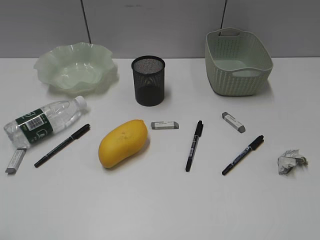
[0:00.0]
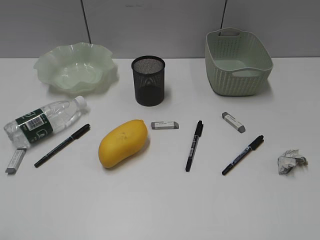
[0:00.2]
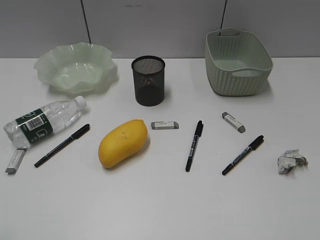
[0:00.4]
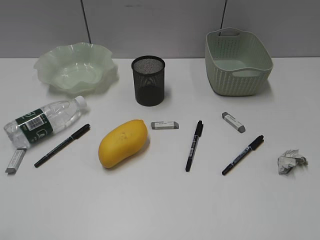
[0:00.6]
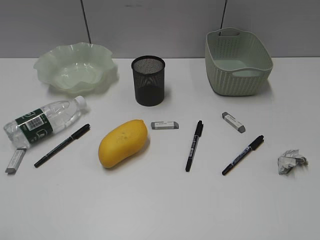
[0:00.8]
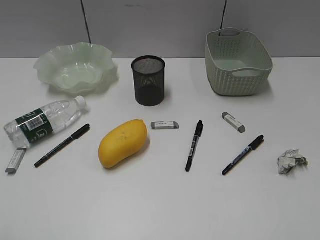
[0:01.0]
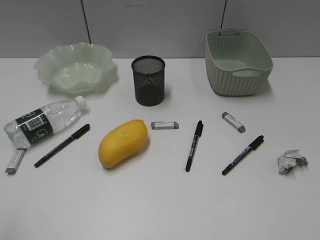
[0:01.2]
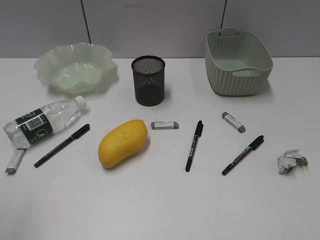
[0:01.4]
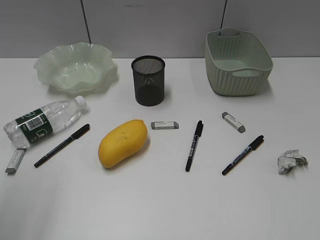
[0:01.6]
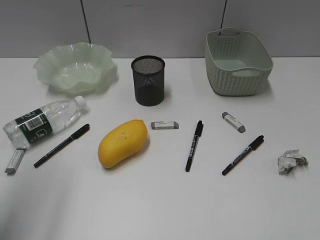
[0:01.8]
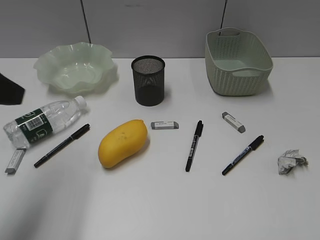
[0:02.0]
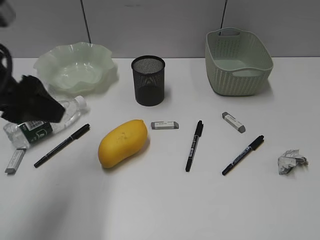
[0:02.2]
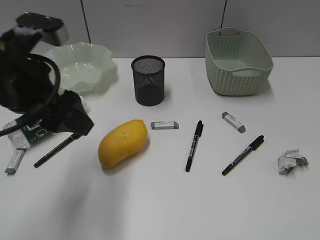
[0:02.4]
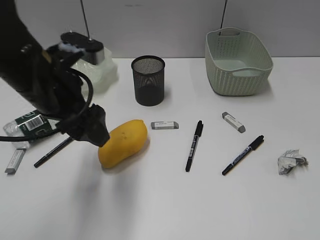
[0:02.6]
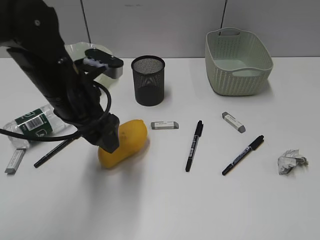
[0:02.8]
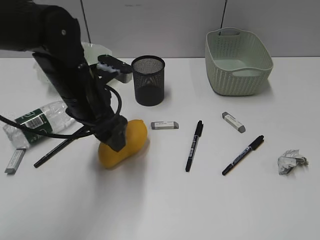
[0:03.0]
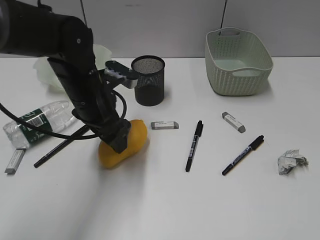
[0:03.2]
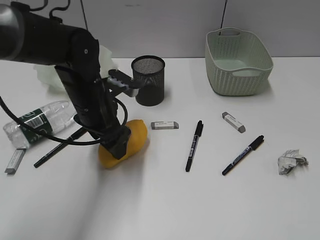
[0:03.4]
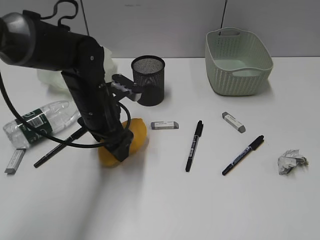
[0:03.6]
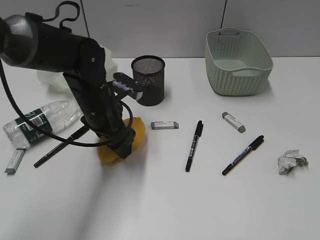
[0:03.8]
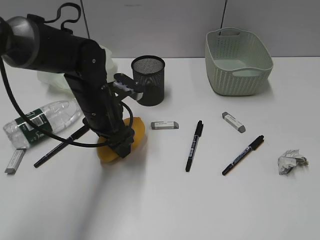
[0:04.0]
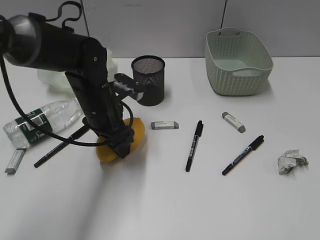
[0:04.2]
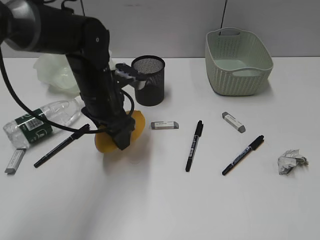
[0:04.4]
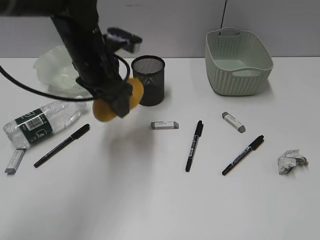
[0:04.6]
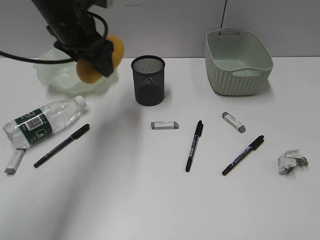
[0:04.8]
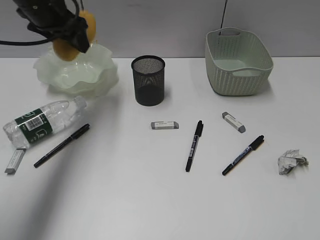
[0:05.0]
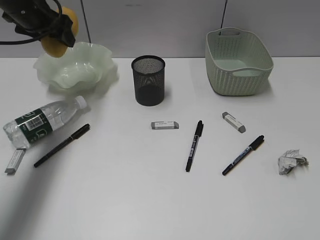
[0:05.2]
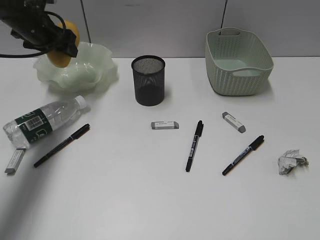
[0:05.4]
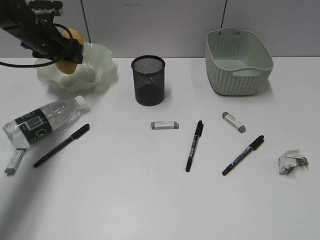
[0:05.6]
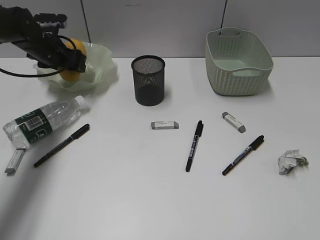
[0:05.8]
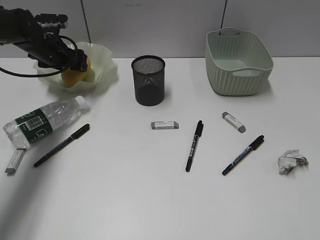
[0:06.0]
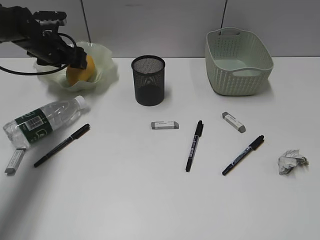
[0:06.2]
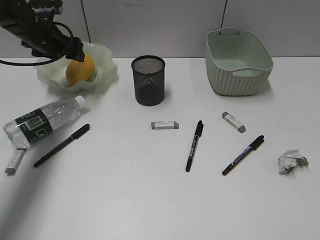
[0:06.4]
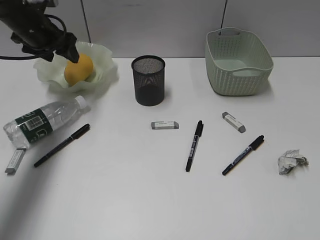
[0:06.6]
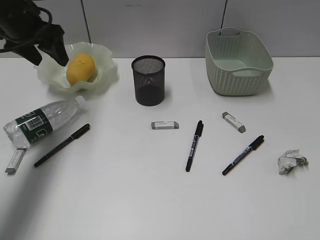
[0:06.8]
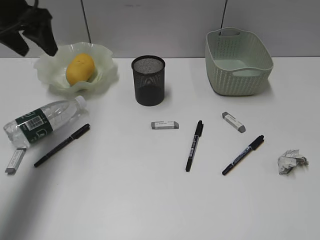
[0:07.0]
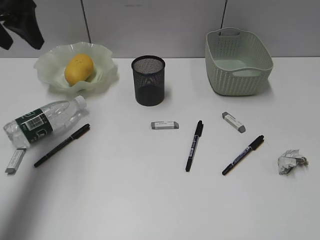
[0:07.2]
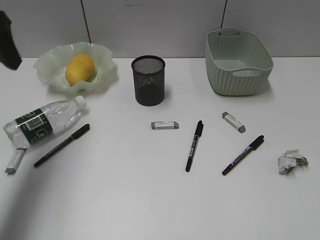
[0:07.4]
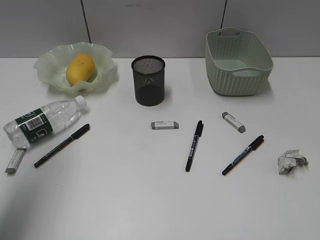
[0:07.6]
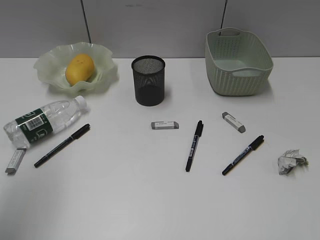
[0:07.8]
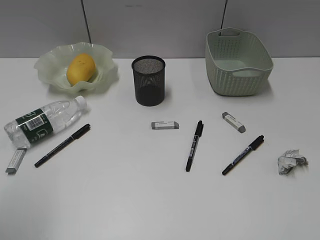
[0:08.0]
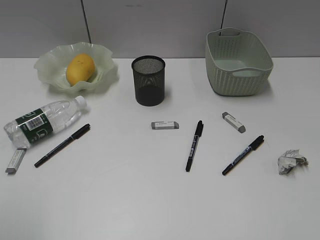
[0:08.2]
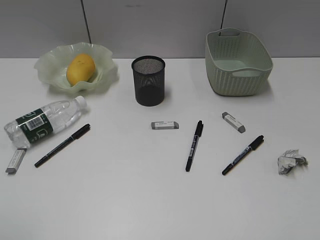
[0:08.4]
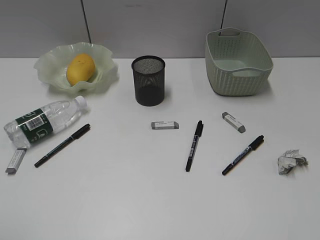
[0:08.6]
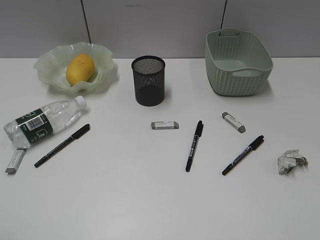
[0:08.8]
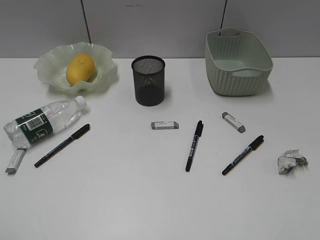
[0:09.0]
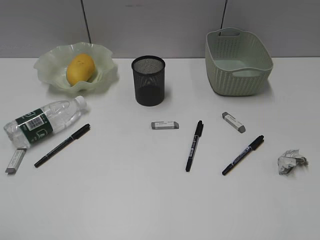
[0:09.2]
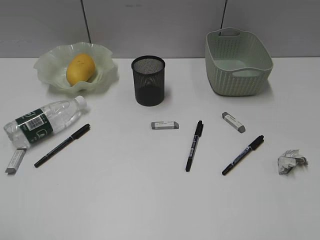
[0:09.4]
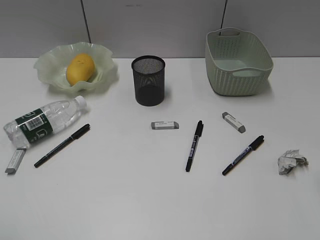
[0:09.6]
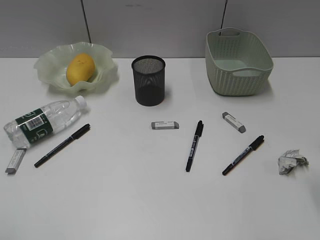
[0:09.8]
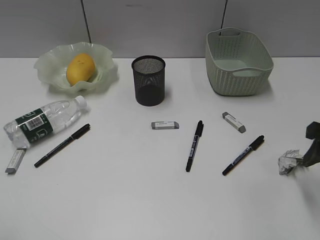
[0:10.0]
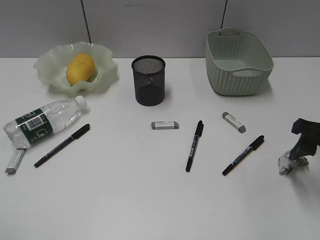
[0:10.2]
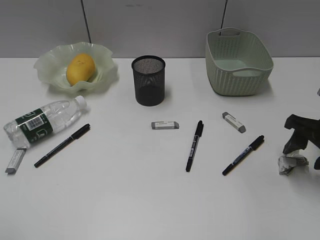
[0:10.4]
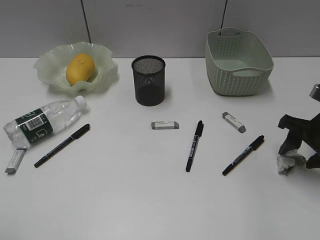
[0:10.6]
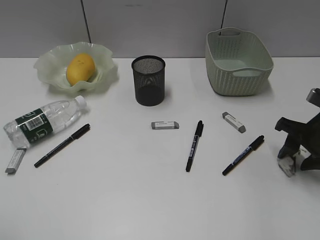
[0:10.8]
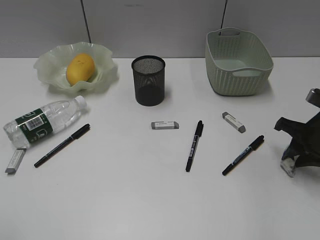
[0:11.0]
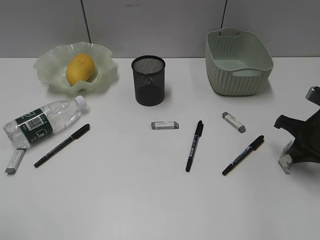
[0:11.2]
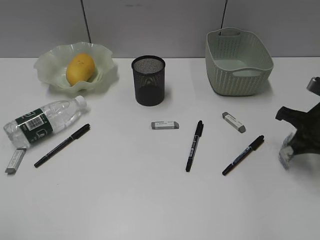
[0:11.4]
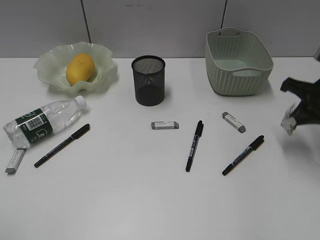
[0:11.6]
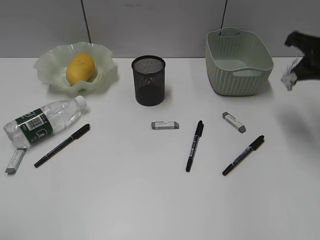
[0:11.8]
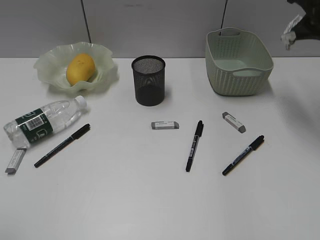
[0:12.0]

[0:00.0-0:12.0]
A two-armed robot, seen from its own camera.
Step, 0:01.2 to 0:04.0: Grasp the mango with left gripper.
Step, 0:04.2 to 0:06.4: Place the mango in the plate with left gripper.
Step, 0:06.6 to 0:11.2: Grasp the waste paper with right gripper.
0:01.6 to 0:03.0: The left gripper is displaced forward, to the right and downward by about 30 cm.
0:03.0 to 0:04.4: The left gripper moves some 5 cm.
0:04.4 to 0:06.0: The left gripper travels forward and to the left by approximately 20 cm.
0:06.0 to 0:07.6: The left gripper moves backward and upward, some 30 cm.
0:07.6 to 0:09.0: The left gripper goes approximately 25 cm backward.
0:09.0 to 0:10.4: The right gripper goes roughly 30 cm forward and downward.
0:10.4 to 0:12.0: The right gripper travels upward and forward by about 15 cm, and closes its fingers.

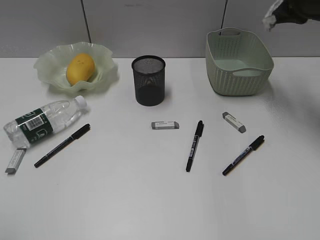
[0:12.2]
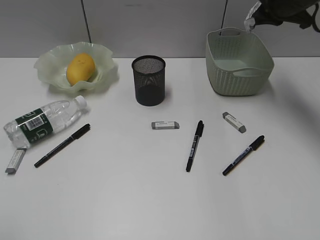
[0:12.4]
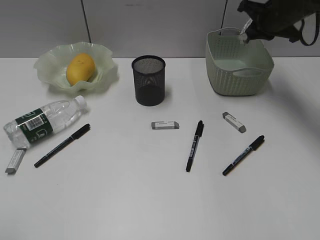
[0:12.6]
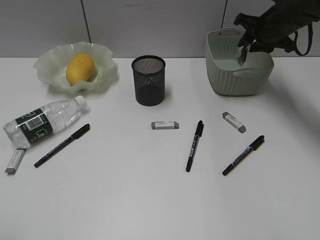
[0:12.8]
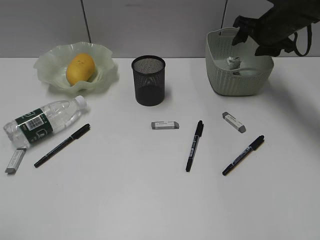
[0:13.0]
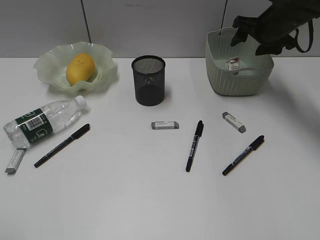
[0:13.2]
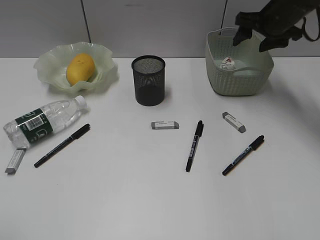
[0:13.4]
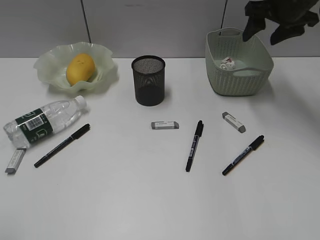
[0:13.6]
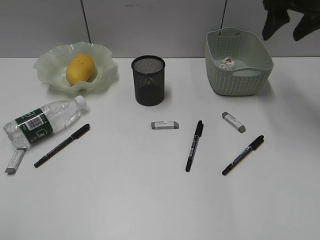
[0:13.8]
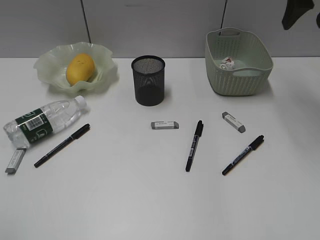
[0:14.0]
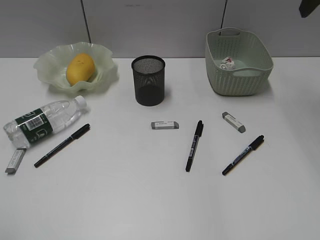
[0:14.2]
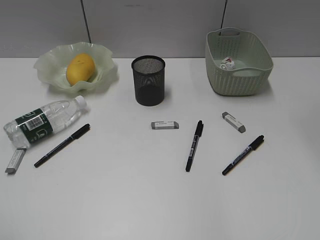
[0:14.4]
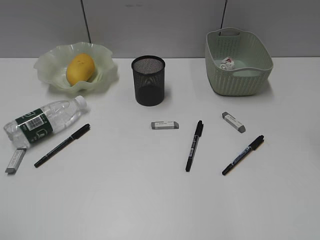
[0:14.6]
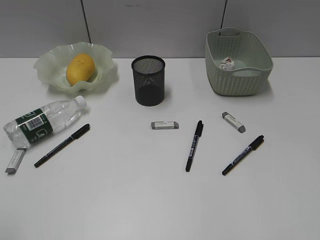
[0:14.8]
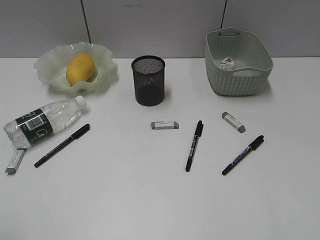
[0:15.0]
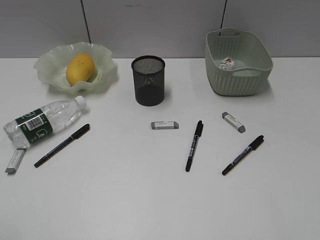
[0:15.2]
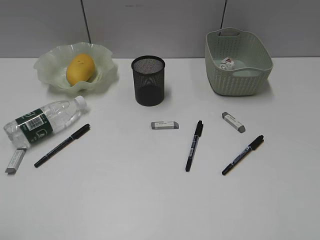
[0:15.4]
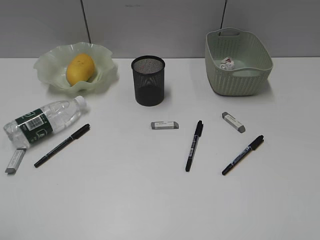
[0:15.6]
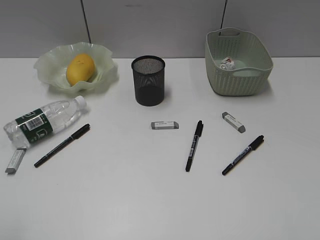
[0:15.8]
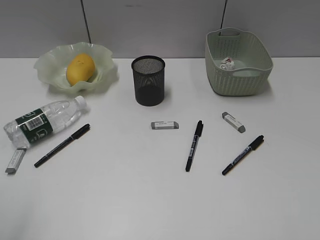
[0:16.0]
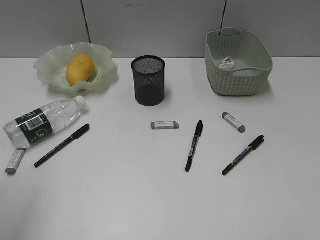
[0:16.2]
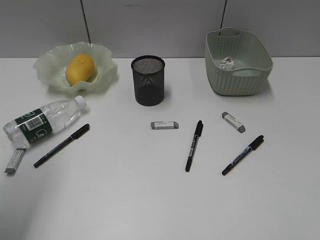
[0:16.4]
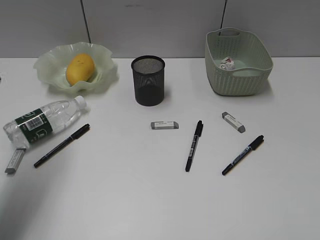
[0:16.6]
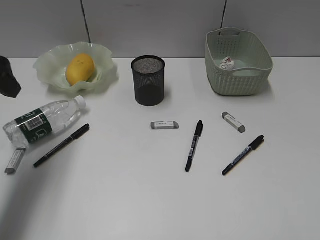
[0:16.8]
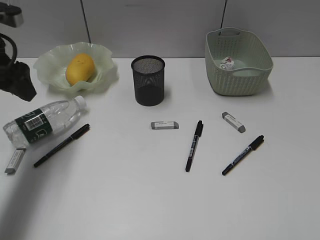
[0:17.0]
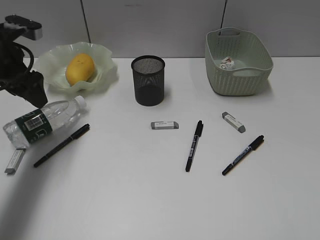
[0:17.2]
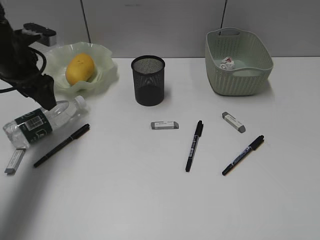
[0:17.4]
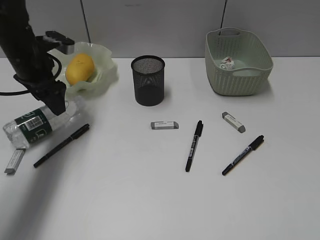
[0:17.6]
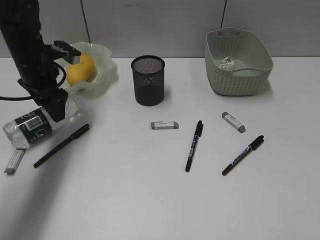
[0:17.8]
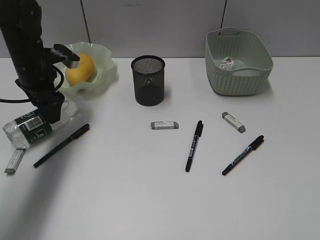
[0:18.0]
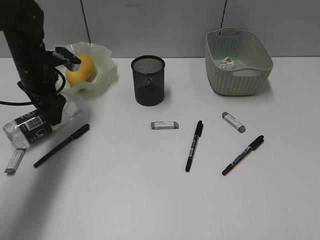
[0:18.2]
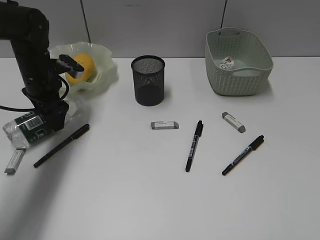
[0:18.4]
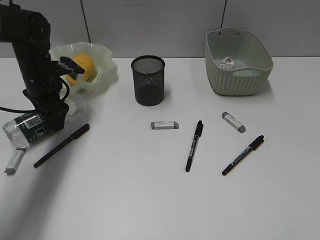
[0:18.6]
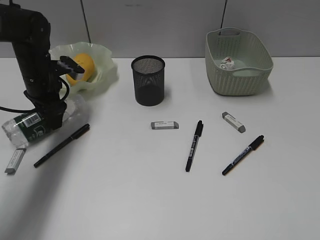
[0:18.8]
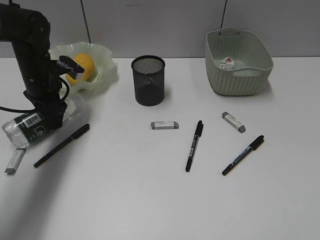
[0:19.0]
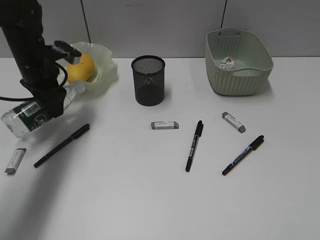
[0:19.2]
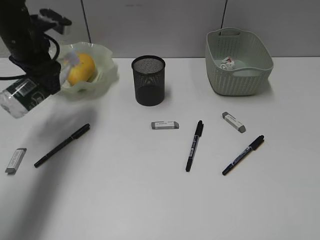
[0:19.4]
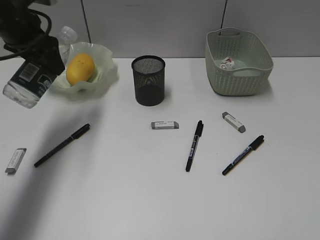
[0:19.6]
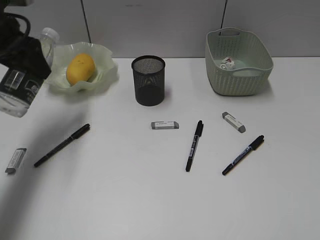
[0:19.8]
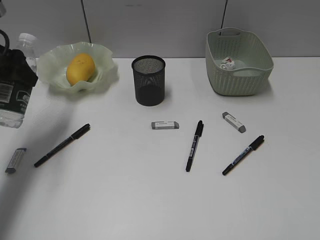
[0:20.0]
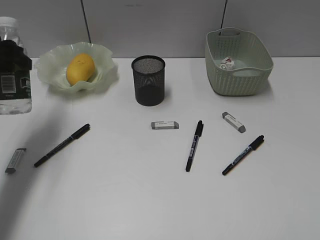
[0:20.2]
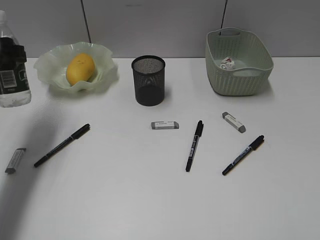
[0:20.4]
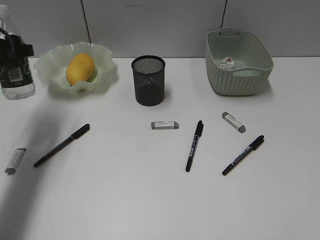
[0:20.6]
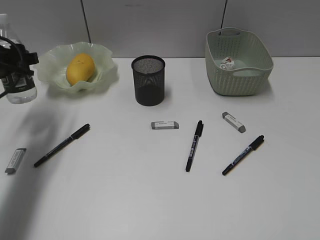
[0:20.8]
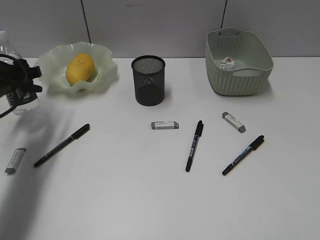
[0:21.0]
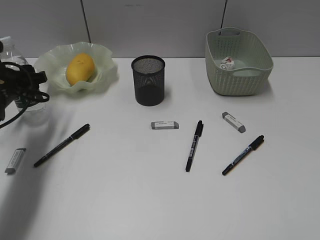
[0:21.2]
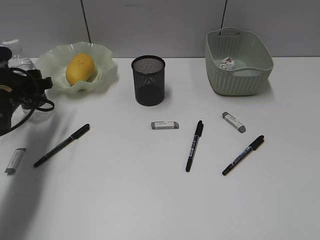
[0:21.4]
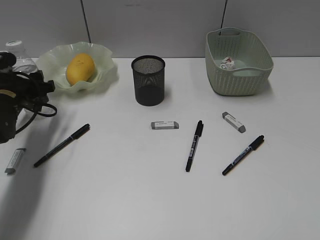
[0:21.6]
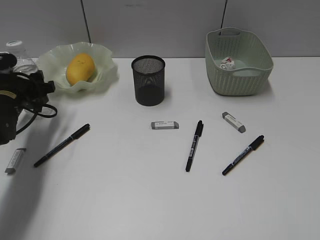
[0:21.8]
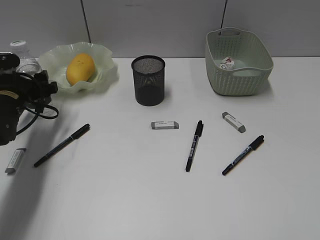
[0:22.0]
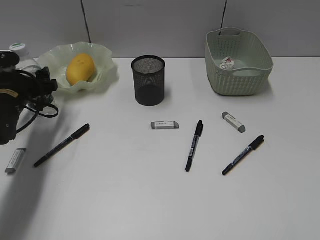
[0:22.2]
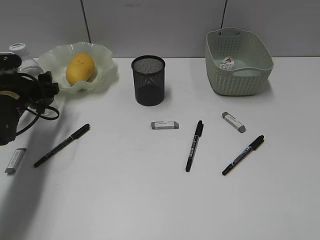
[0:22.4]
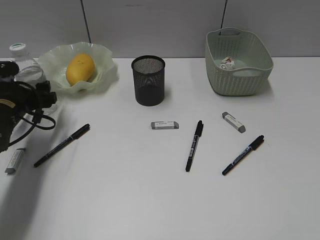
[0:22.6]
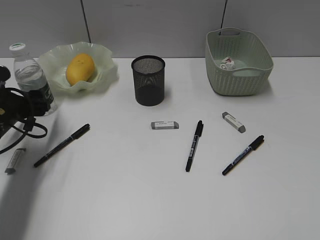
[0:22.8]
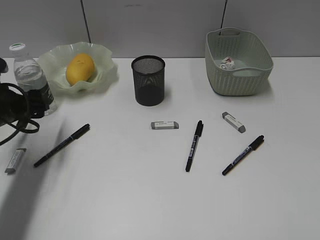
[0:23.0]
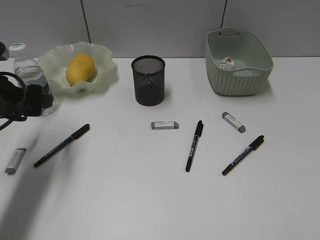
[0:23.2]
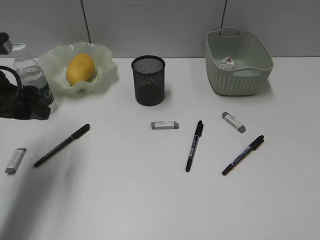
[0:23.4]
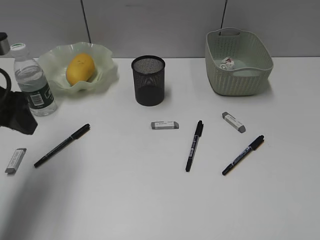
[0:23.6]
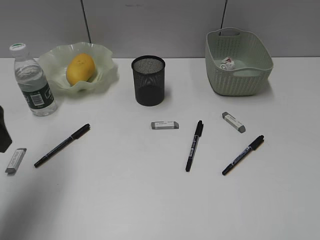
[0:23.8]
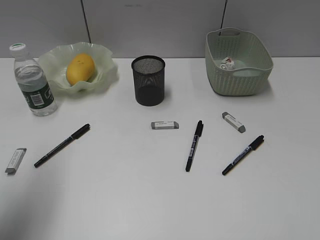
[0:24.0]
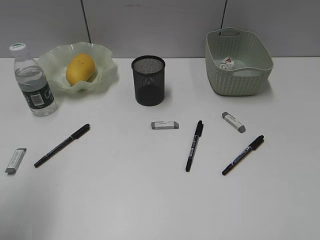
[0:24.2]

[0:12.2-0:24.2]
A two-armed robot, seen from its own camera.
Step, 0:13.2 to 0:18.8: Grasp the bottle with left gripper.
Step, 0:19.0 to 0:22.8: Stand the bottle with left gripper.
0:12.2 to 0:13.8: The right gripper reaches some 10 cm downward, then returns, and opens up.
0:13.8 to 0:15.2: The right gripper goes approximately 35 cm backward.
0:15.2 to 0:16.6: The left gripper travels forward by approximately 20 cm.
0:16.6 to 0:18.2: The left gripper is displaced forward and downward by approximately 25 cm.
0:18.2 to 0:19.8: The left gripper moves upward, approximately 10 cm.
0:19.8 to 0:21.2: The left gripper heads downward, covering approximately 15 cm.
0:21.2 to 0:22.6: There are only small adjustments of the grippers.
0:22.6 to 0:24.2: The left gripper heads backward and upward, covering approximately 25 cm.
